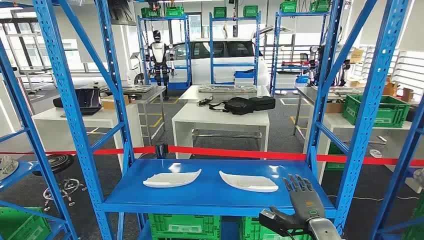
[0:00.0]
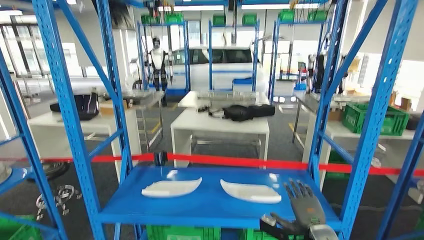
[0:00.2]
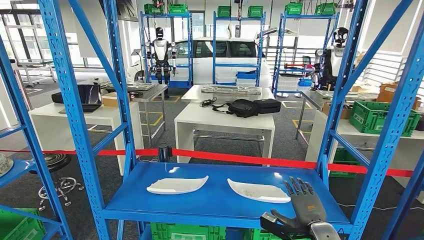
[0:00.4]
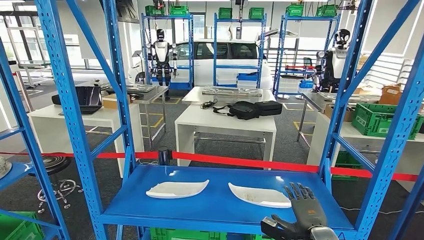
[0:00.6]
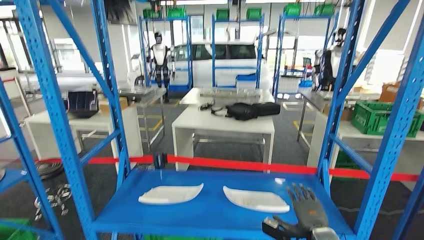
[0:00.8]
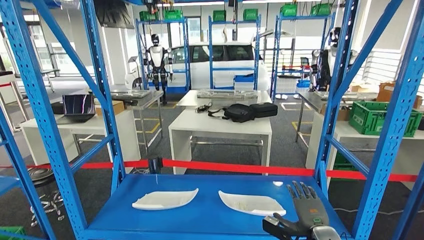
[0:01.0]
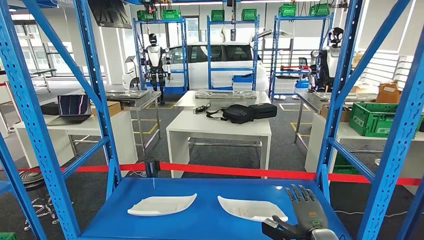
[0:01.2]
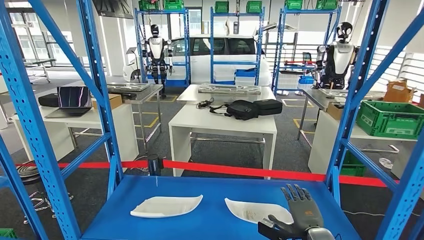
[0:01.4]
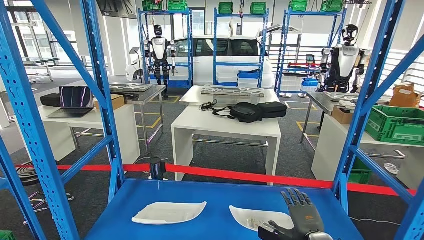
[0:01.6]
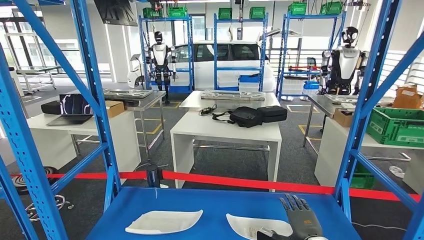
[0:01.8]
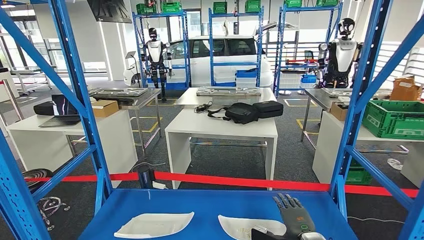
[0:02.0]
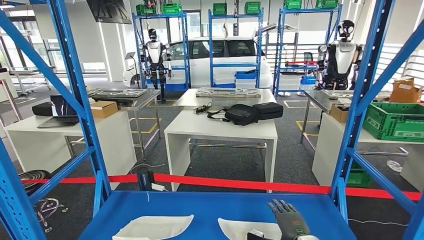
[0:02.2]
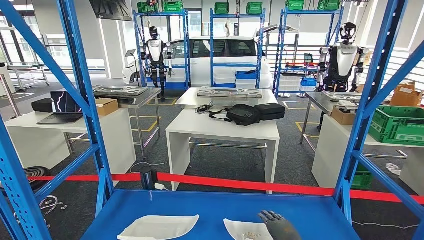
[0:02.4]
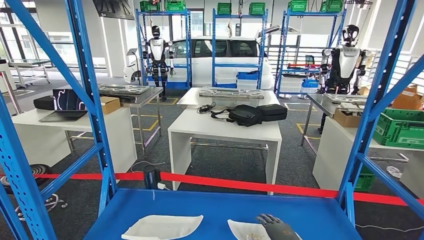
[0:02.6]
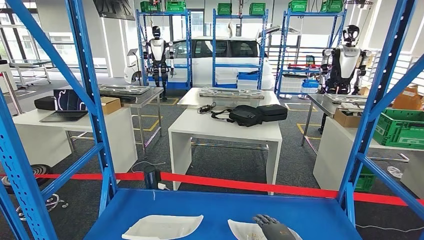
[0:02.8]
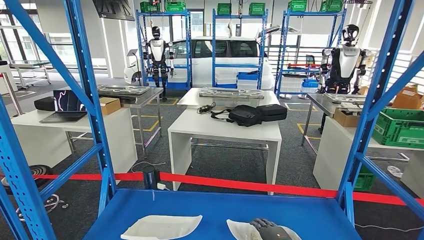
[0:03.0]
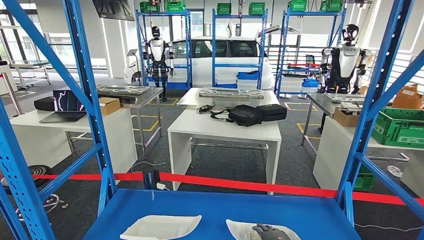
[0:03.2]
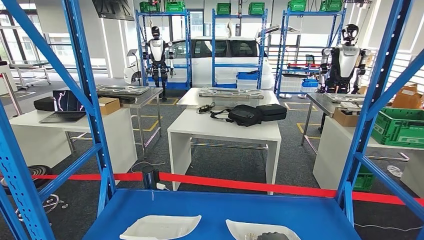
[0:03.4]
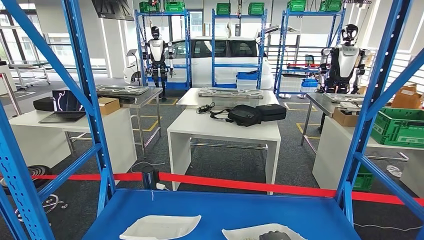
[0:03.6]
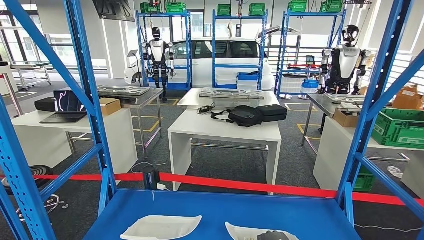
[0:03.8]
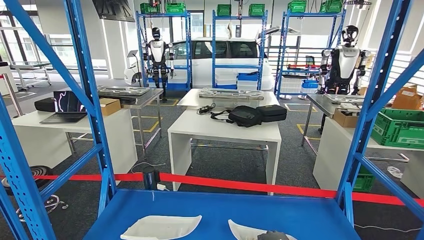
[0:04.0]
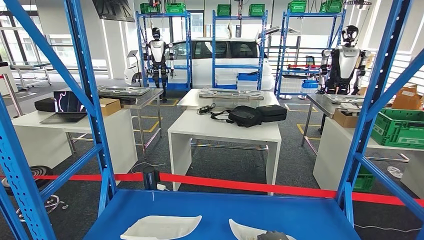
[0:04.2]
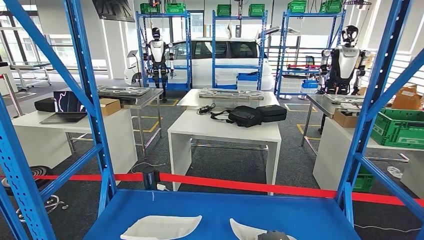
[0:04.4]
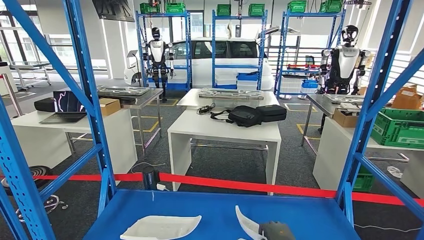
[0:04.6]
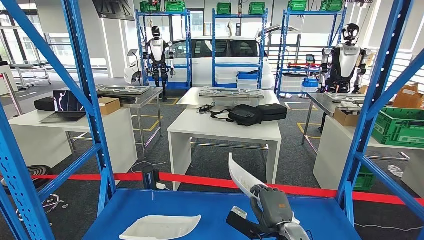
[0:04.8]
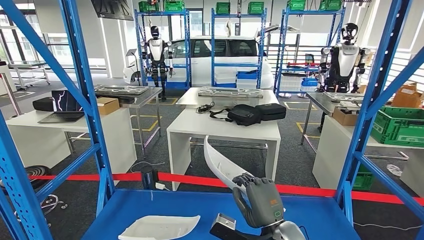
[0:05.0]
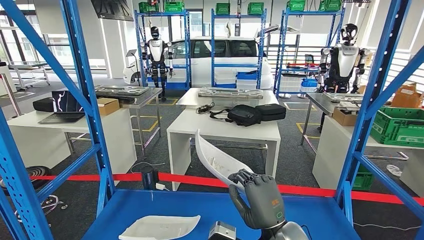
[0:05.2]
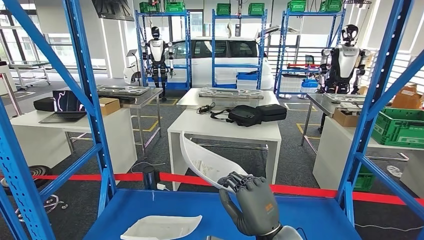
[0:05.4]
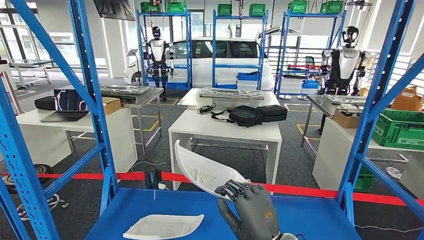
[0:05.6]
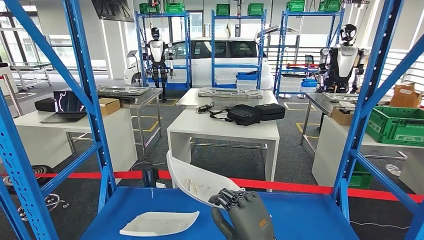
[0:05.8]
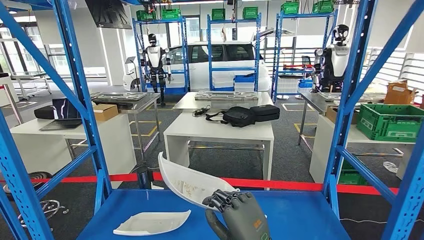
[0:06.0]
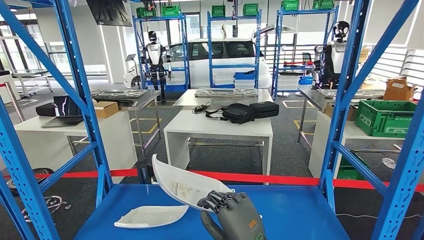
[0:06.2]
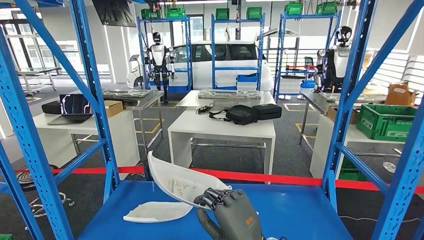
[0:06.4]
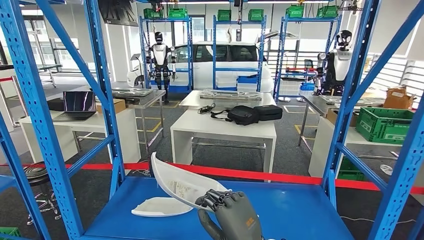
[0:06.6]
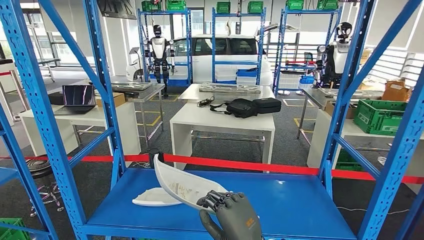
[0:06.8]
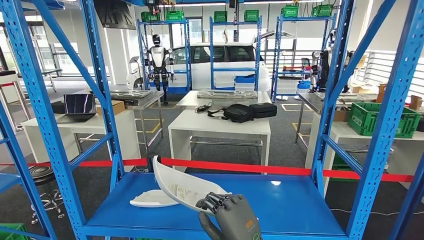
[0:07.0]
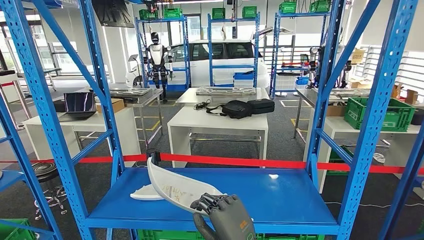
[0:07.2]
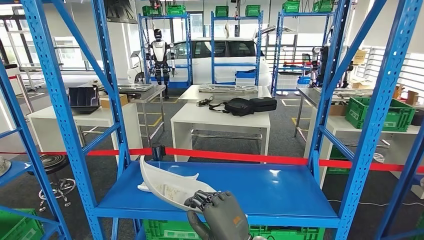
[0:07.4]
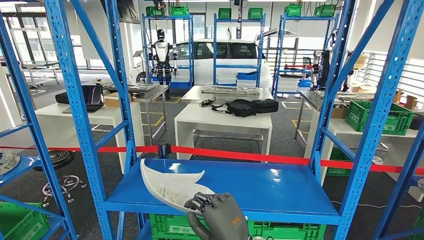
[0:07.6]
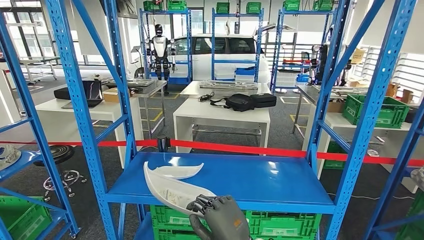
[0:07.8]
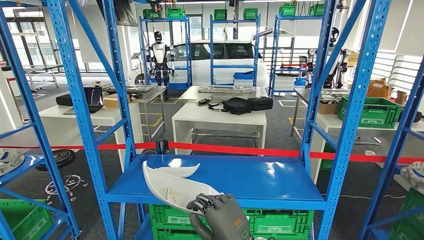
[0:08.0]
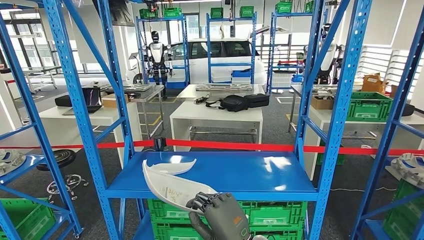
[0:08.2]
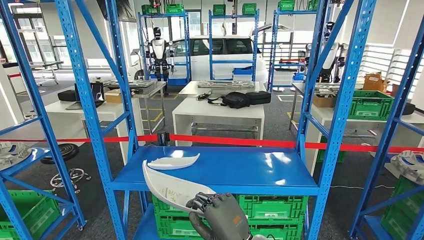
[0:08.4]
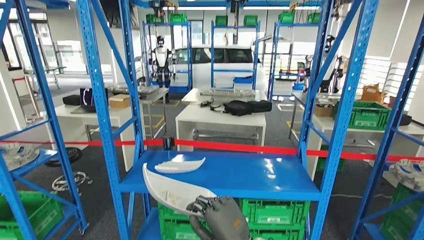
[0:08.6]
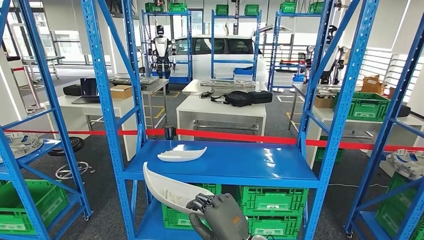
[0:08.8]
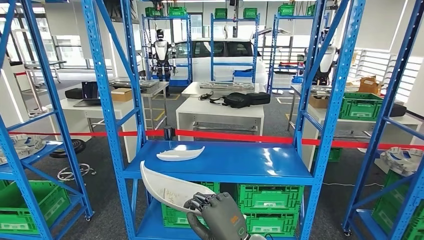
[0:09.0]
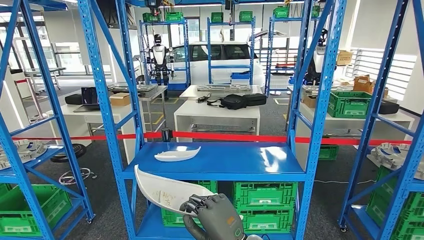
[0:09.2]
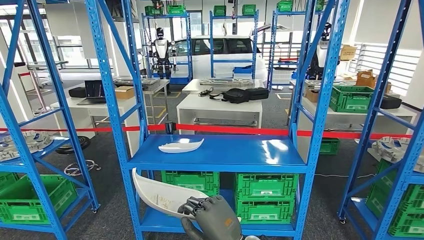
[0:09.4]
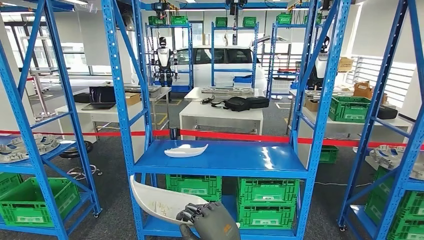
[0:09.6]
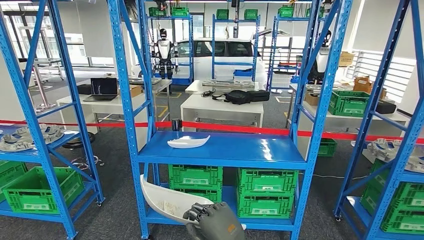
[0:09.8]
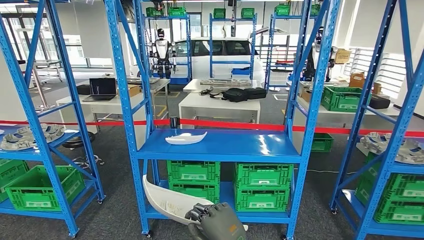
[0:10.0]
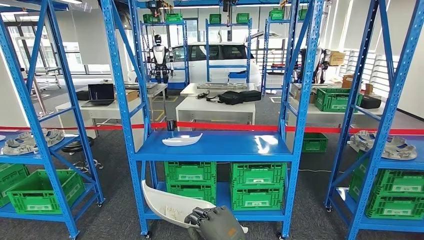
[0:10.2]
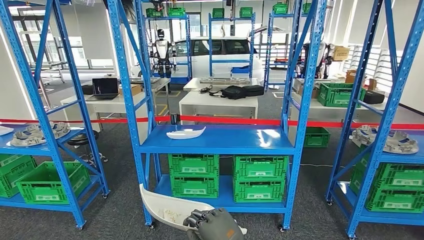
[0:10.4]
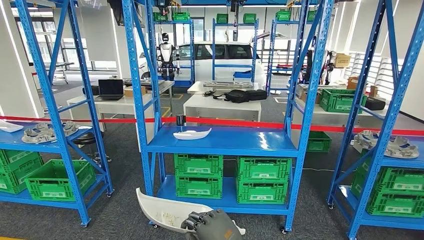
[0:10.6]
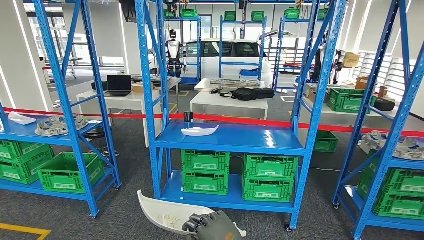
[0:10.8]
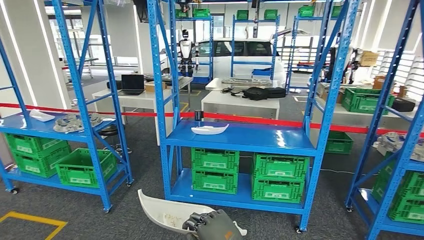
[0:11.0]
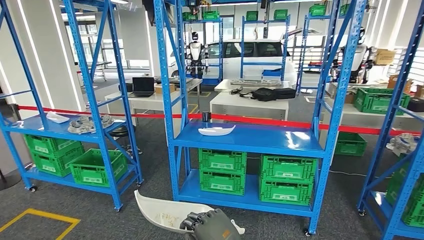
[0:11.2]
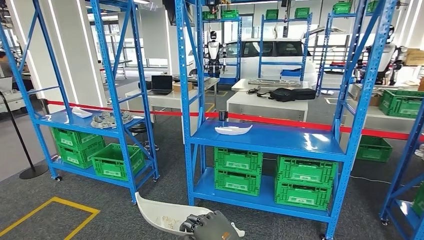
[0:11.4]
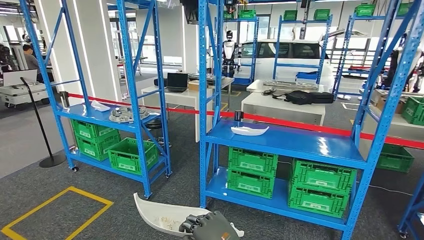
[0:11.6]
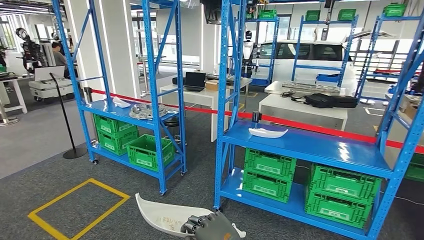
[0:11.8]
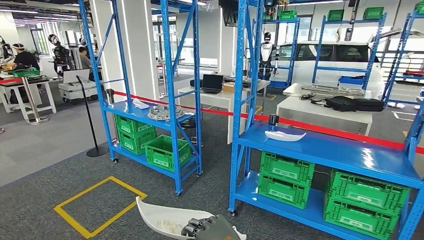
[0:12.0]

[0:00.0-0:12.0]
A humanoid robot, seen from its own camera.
Step, 0:00.0 to 0:06.0: Pick up the small component from the shelf.
0:03.0 to 0:04.4: The hands stay close to where they were, moving slightly.

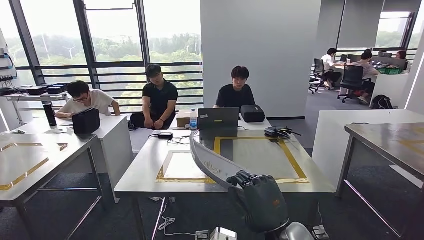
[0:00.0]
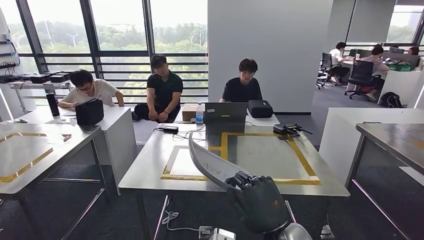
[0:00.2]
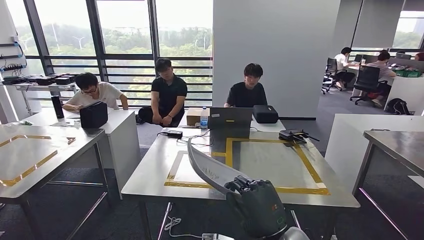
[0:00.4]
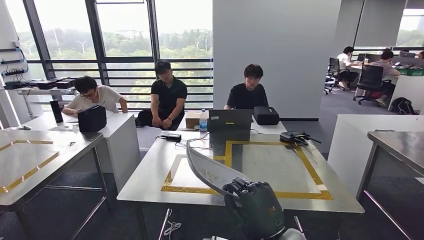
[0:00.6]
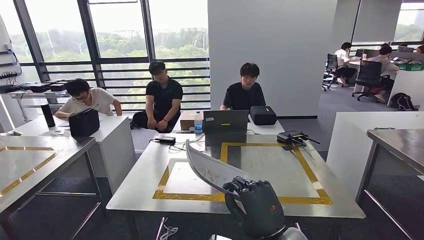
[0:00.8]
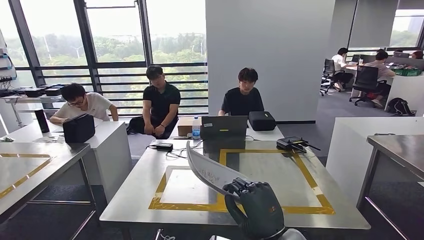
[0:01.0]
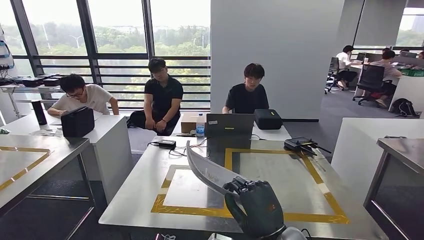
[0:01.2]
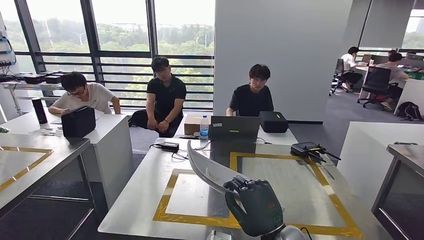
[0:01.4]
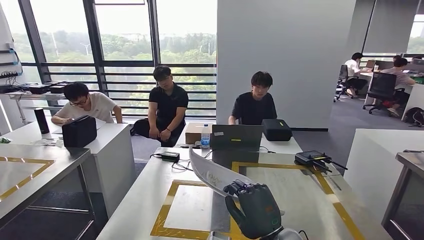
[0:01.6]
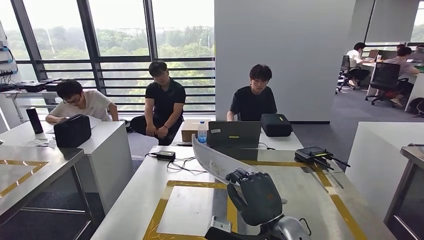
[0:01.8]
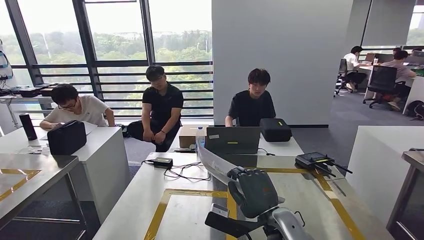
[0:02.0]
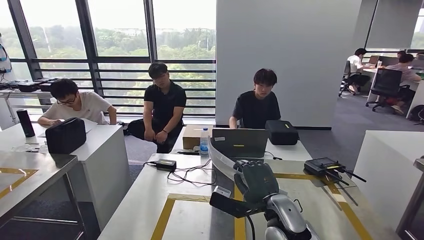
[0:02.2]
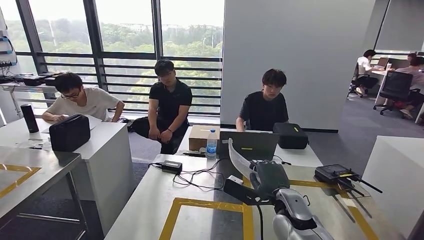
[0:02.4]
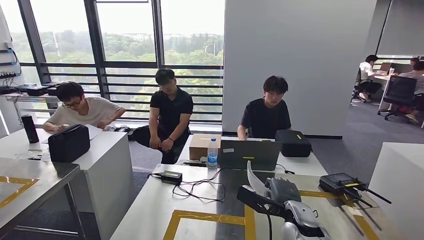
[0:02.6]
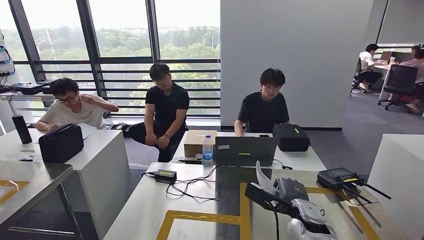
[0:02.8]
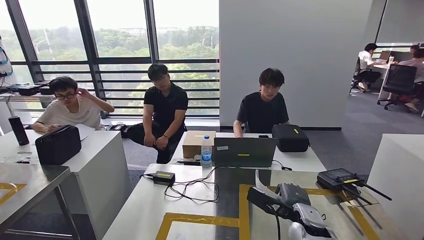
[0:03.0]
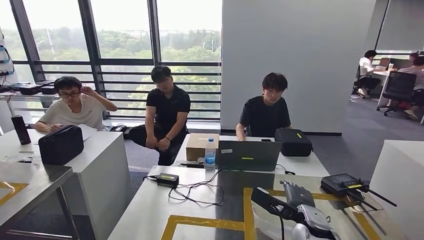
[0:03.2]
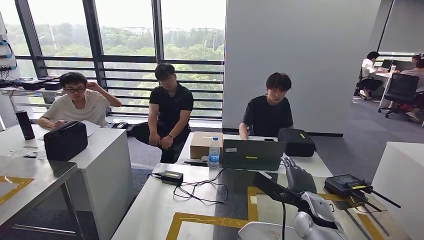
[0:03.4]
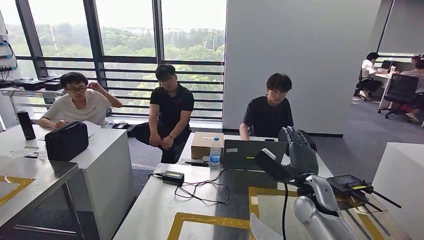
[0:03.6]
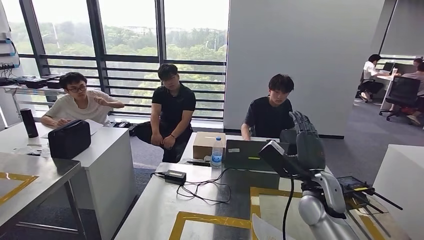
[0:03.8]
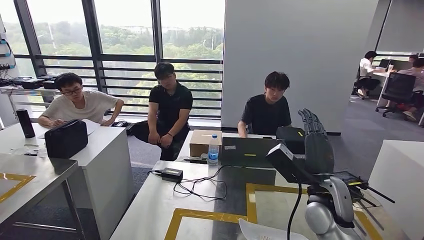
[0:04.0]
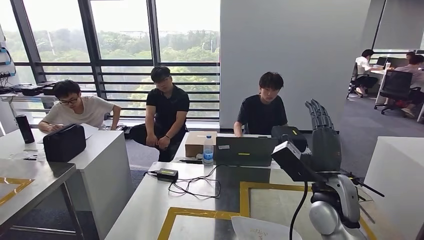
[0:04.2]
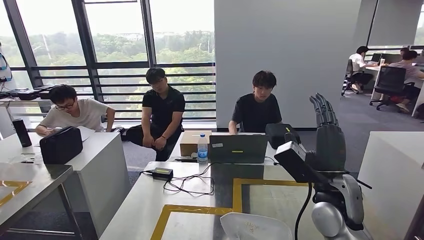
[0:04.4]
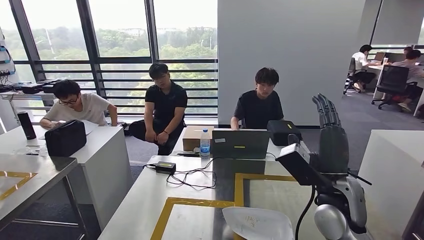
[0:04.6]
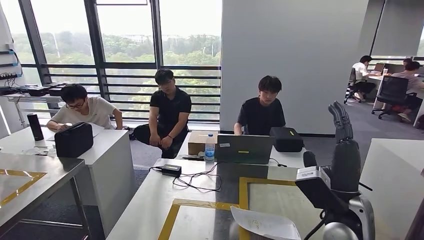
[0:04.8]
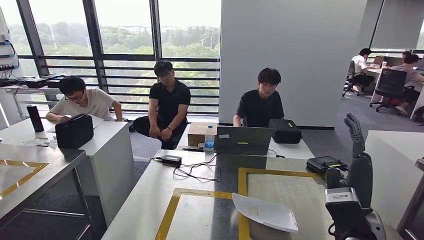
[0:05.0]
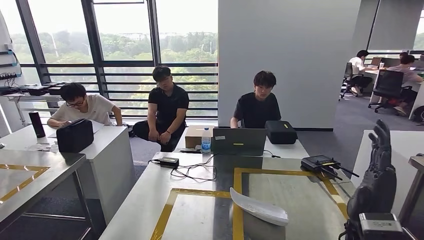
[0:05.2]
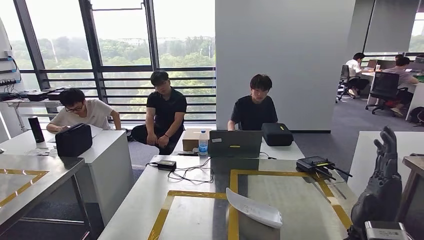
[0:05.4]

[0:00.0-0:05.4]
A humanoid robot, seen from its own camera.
Step, 0:02.0 to 0:04.2: Insert the small component into the corresponding slot on the workbench.
